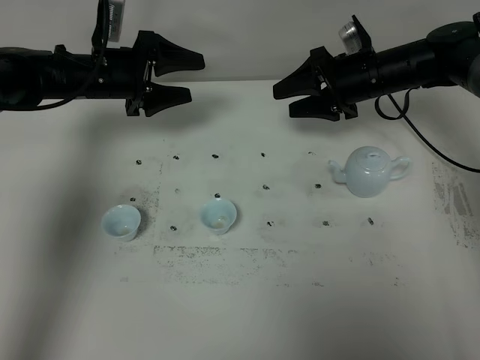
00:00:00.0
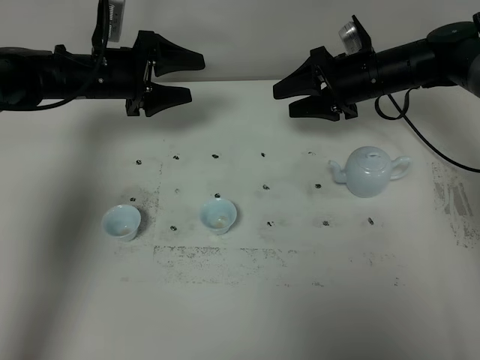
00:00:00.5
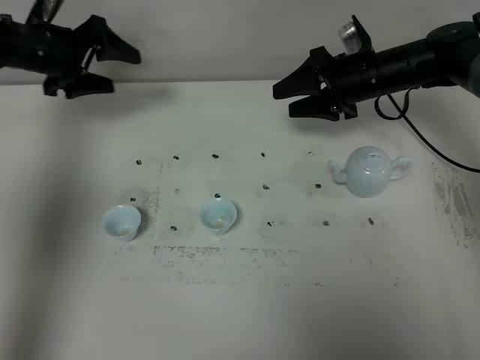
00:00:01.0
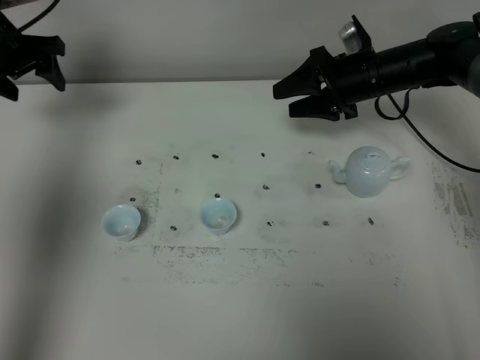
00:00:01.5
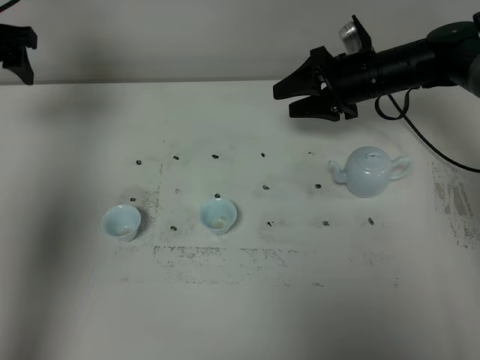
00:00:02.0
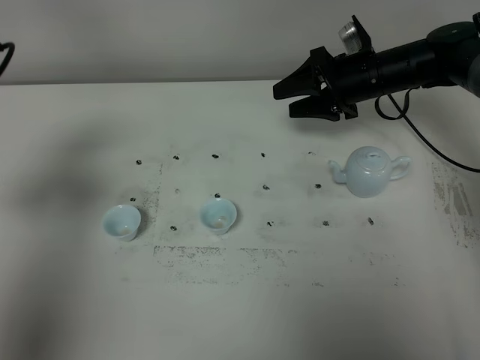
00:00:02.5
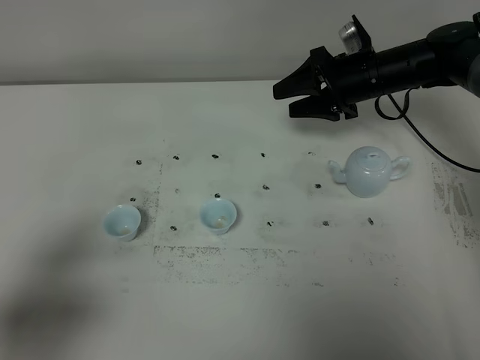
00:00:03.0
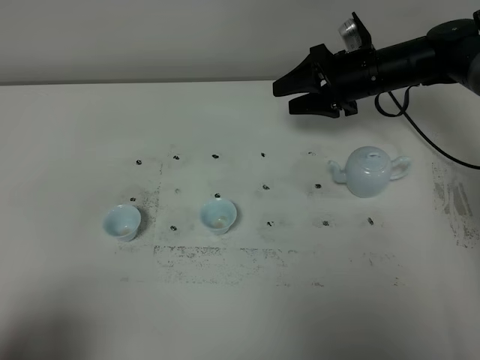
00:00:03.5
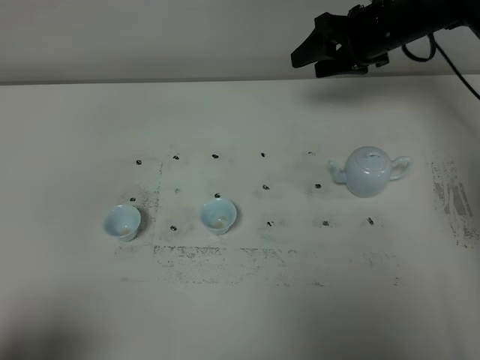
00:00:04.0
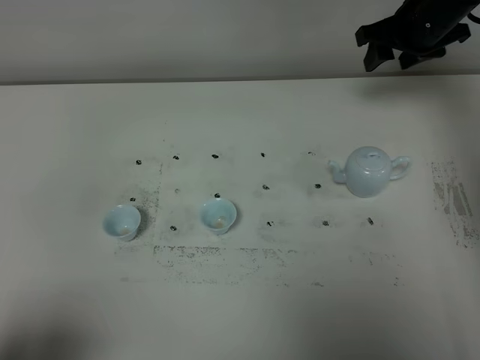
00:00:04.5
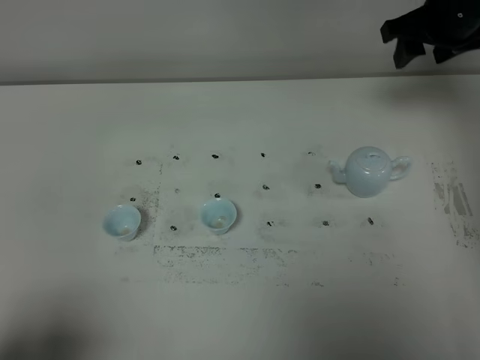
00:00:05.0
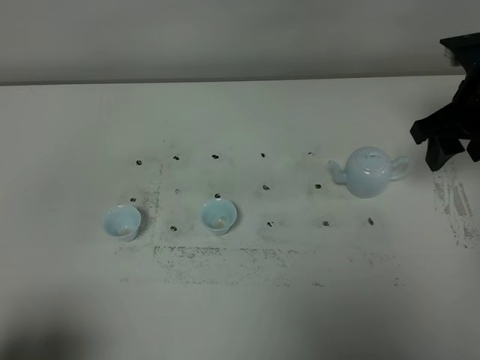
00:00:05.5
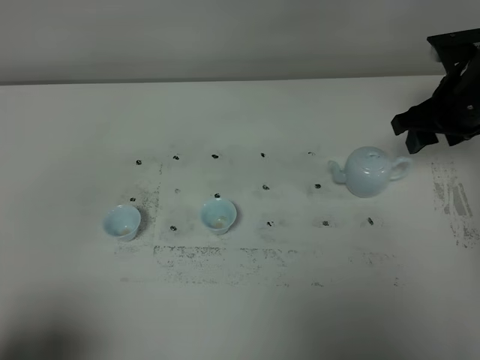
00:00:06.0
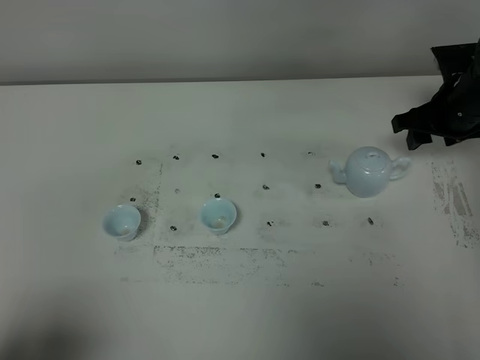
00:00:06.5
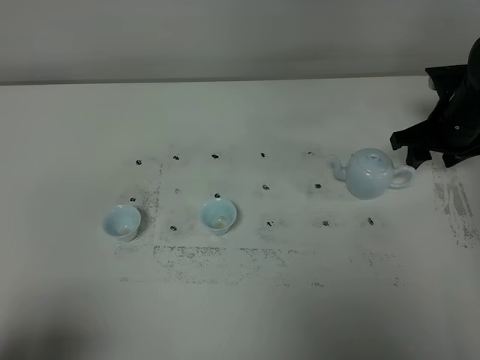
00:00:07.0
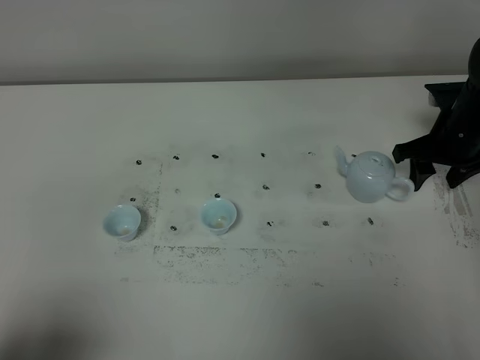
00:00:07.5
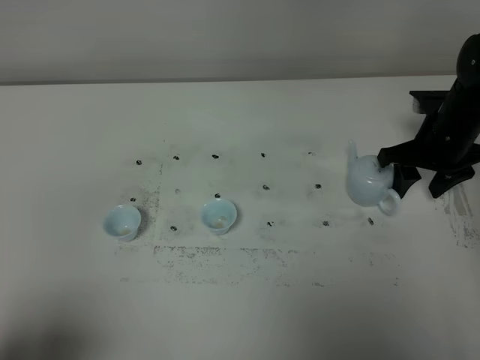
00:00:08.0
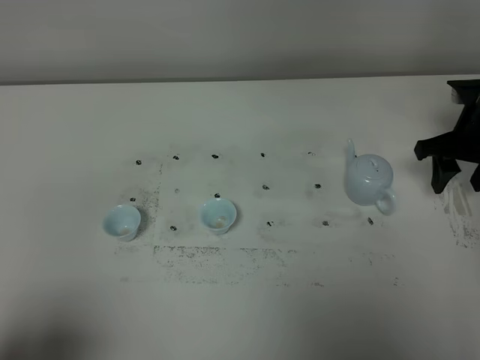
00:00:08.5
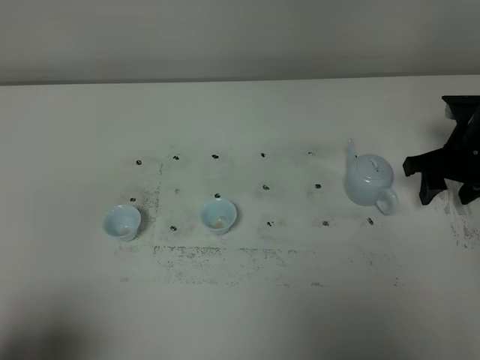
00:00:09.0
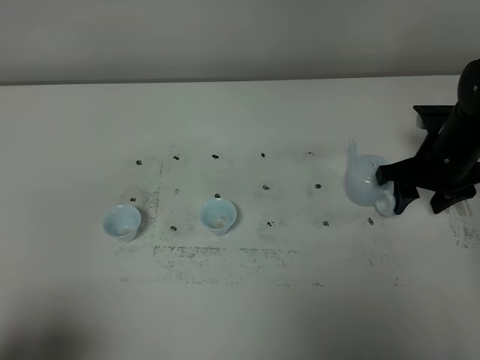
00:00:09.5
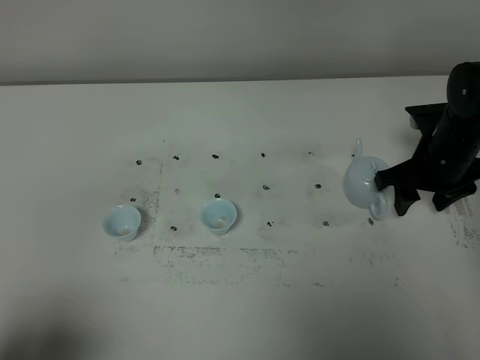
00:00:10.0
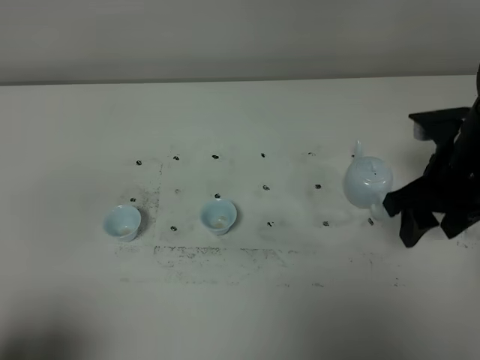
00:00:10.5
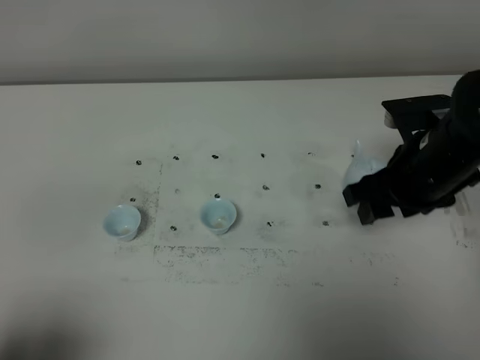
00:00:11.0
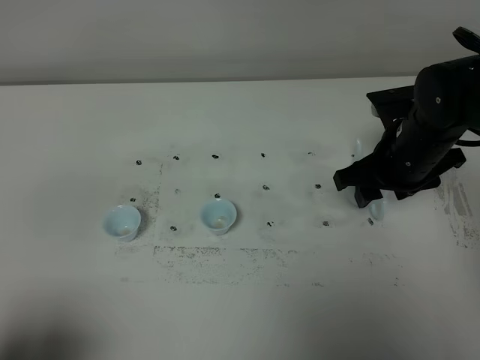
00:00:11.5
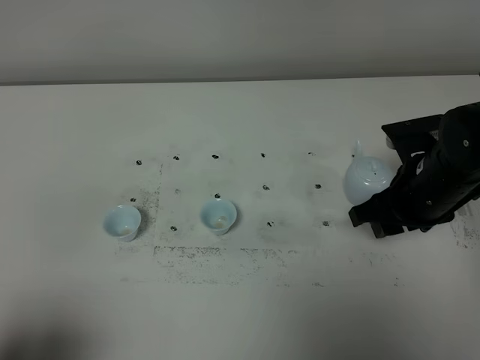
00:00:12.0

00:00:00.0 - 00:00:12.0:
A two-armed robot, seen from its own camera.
Task of the whole recording: grasp the blue porcelain teapot and pour the tea into the two blue porcelain teacups one by one, put the blue porcelain teapot back in its original place.
00:00:00.0 - 00:00:02.0: The left gripper goes some 20 cm to the left and upward.
00:00:02.0 - 00:00:04.0: The right gripper goes approximately 5 cm upward, while the left gripper travels backward by some 50 cm.
00:00:04.0 - 00:00:06.0: The right gripper heads backward and to the right, covering approximately 15 cm.
00:00:06.0 - 00:00:08.0: The right gripper shifts some 5 cm downward.
00:00:08.0 - 00:00:10.0: The grippers move only a little.
00:00:10.0 - 00:00:12.0: The right gripper moves forward and backward over approximately 10 cm, changing direction 2 times.

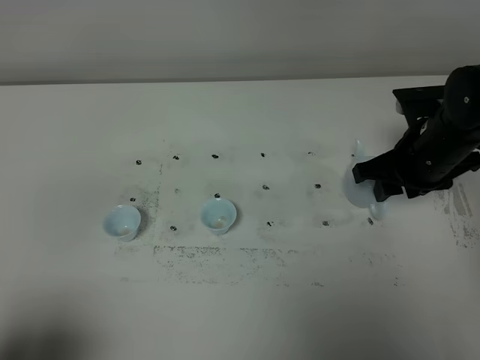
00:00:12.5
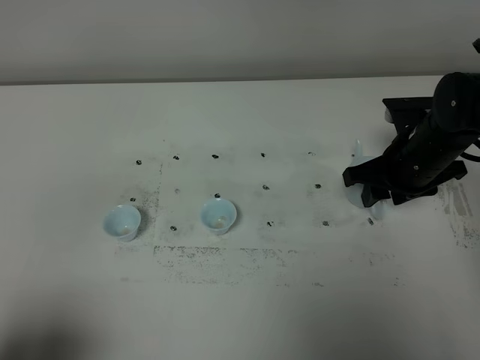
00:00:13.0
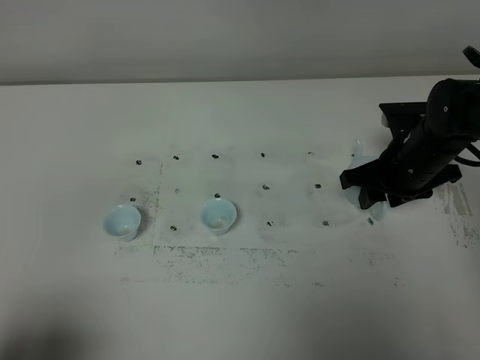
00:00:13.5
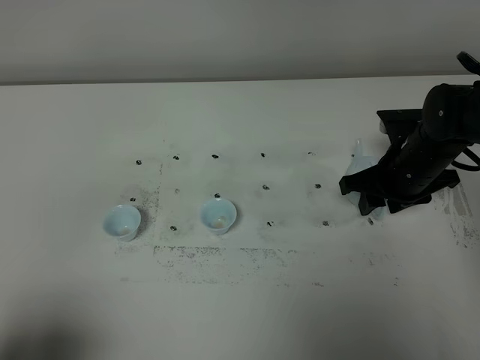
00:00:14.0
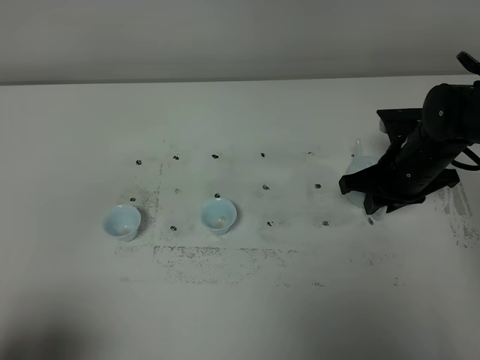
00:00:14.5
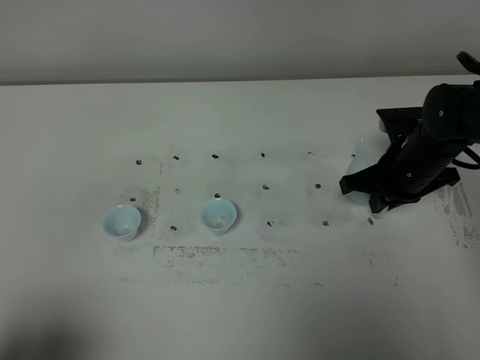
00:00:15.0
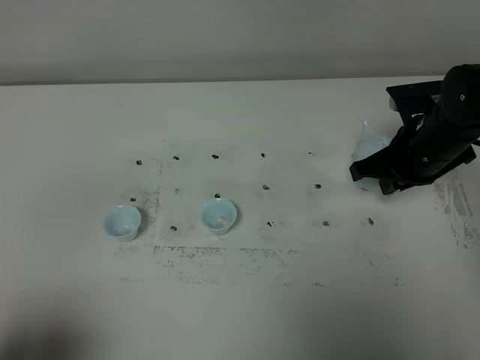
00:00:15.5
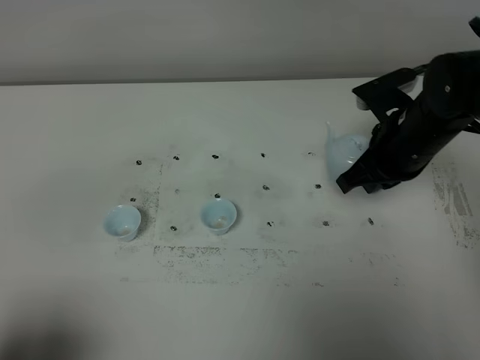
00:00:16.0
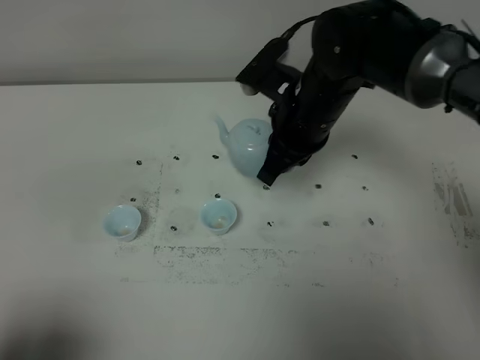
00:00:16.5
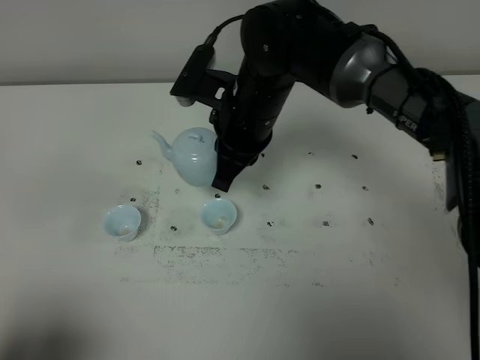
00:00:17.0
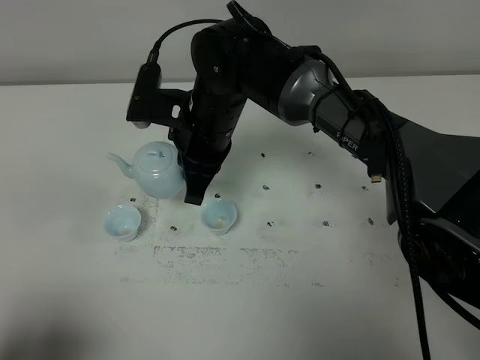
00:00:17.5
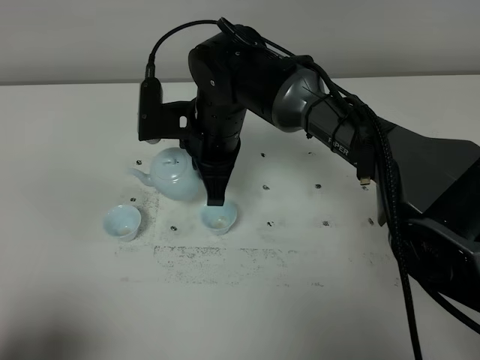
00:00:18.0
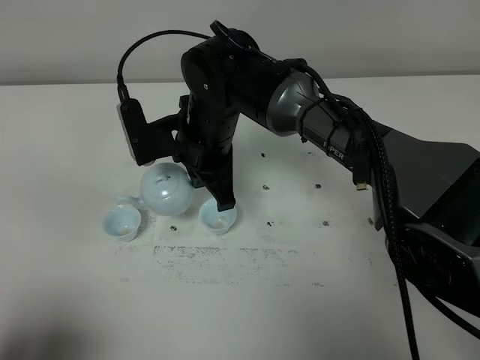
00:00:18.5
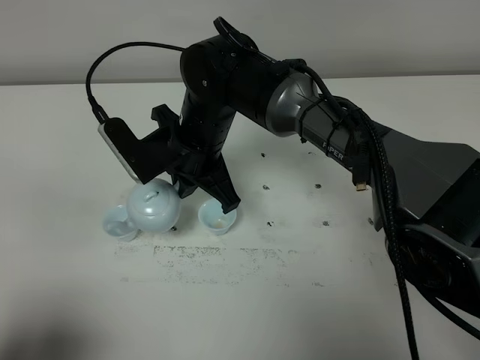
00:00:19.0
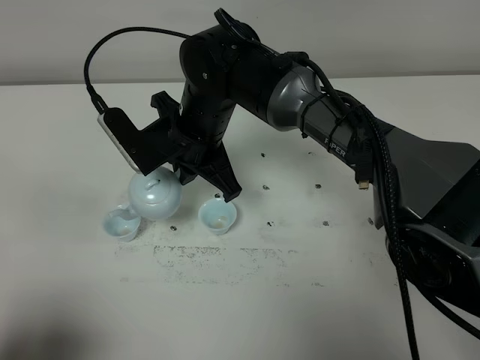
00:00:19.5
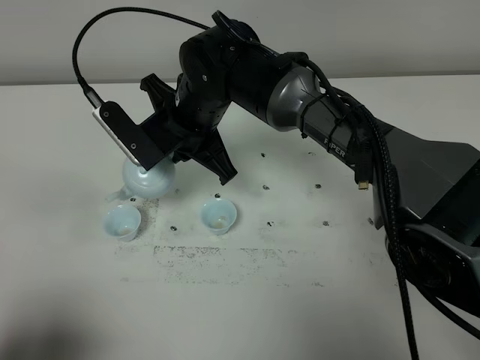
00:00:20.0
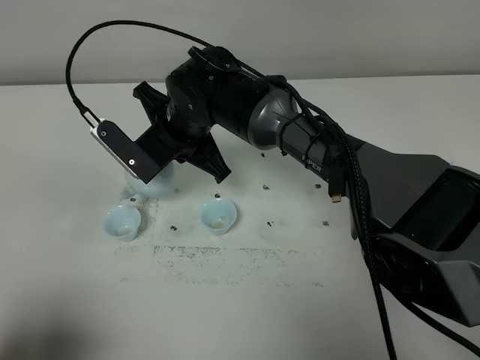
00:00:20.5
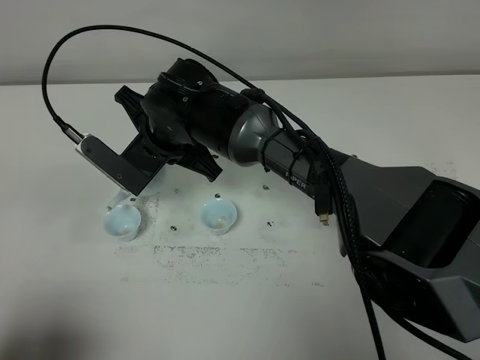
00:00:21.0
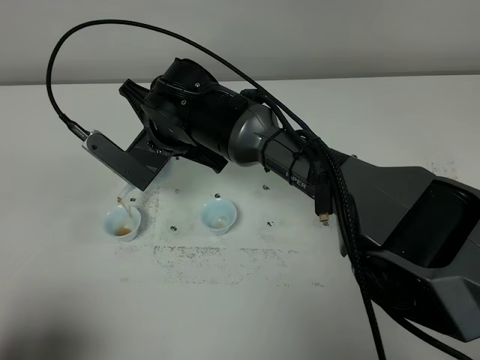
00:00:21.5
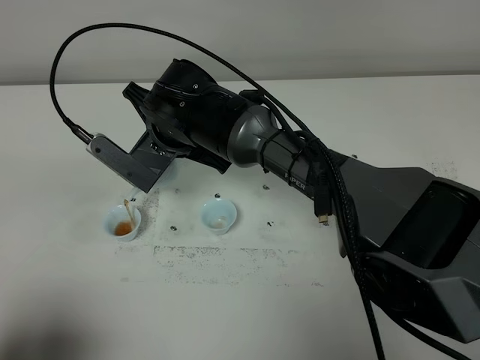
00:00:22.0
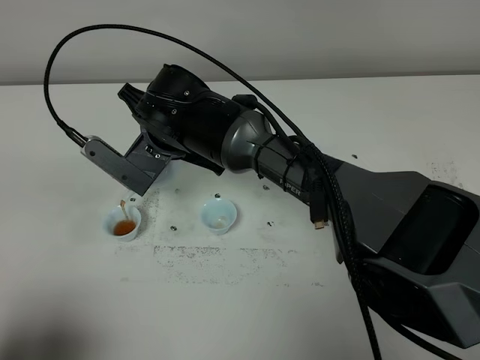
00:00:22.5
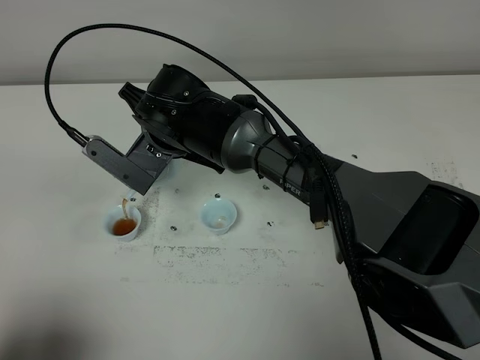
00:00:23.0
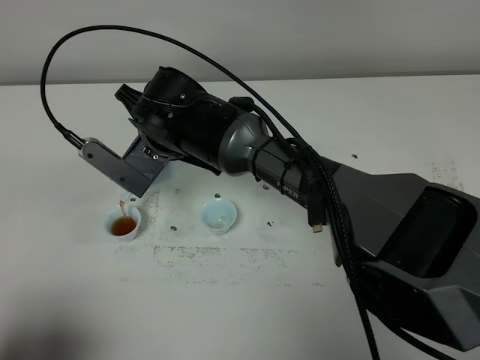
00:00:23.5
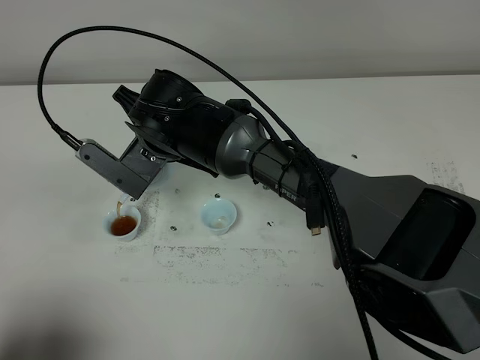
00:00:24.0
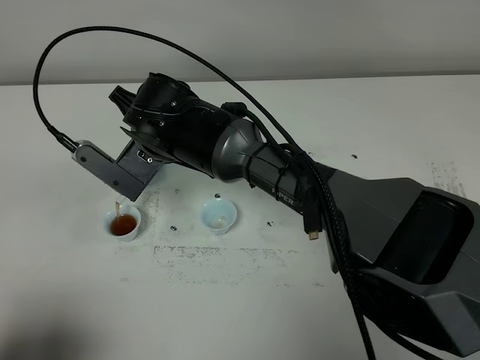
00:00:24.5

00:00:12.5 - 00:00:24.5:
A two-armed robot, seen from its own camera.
Task of the whole recording: grasp the blue porcelain teapot and pour the tea into the two blue porcelain teacups one by one, put the blue porcelain teapot back in its original place.
Step, 00:00:12.5 - 00:00:15.5: Pick up the teapot with the right gripper.
00:00:12.5 - 00:00:14.5: There are only small adjustments of the grippers.
00:00:14.5 - 00:00:16.5: The right gripper heads to the left and upward, covering about 15 cm, and closes up.
00:00:16.5 - 00:00:18.5: The right gripper heads to the left, covering approximately 10 cm.
00:00:22.5 - 00:00:24.5: Neither gripper changes place.

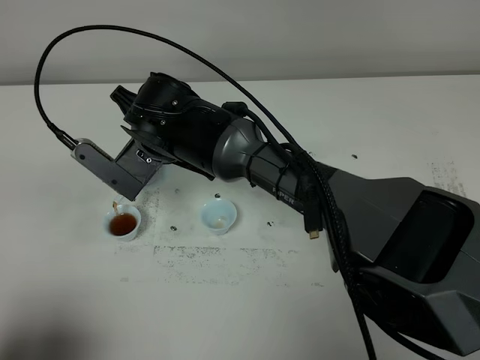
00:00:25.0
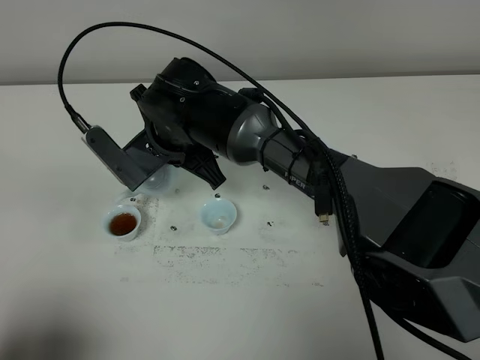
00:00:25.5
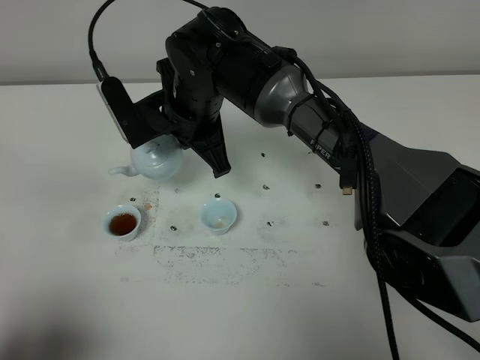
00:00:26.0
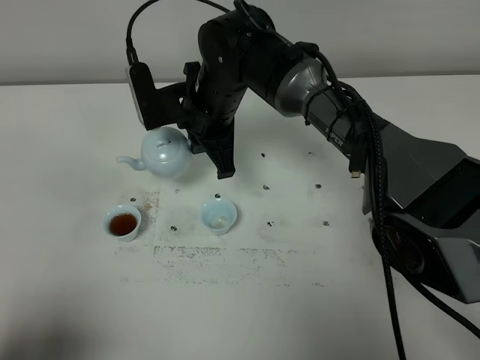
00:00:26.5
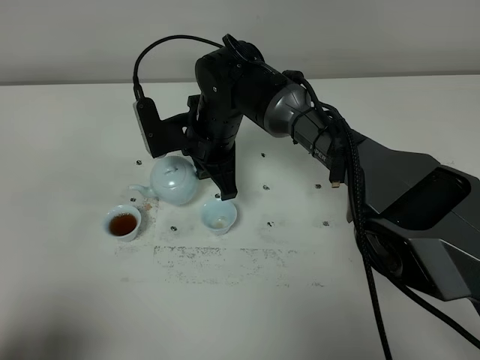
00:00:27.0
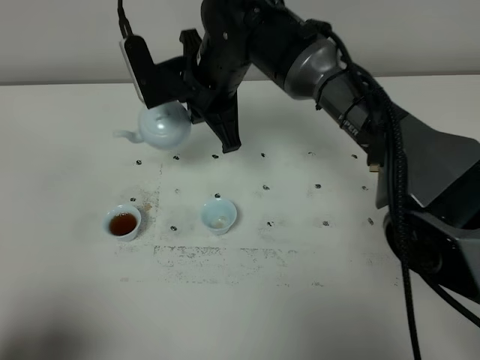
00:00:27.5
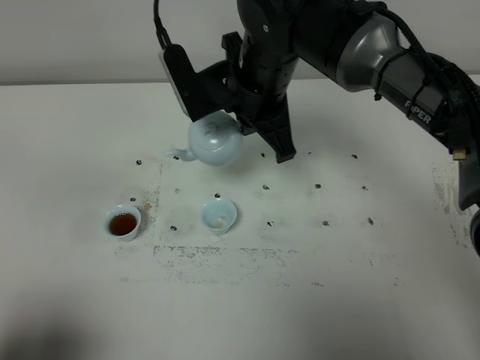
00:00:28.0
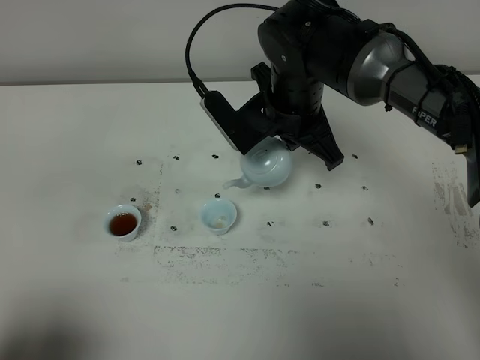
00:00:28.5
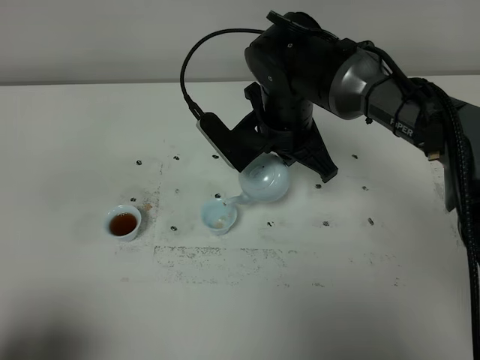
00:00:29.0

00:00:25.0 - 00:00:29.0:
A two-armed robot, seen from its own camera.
Task of the whole recording: grasp the blue porcelain teapot and pour the tea into the two blue porcelain teacups one by one, put the blue porcelain teapot back in its original place.
00:00:25.0 - 00:00:27.0: The right gripper is displaced to the right by roughly 5 cm.
00:00:27.0 - 00:00:29.0: The right gripper heads to the right and upward, covering some 10 cm.
